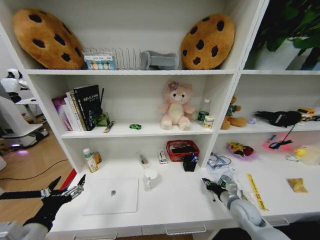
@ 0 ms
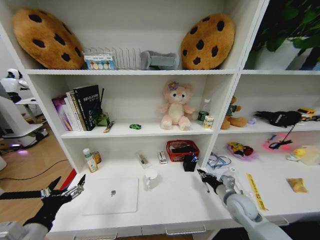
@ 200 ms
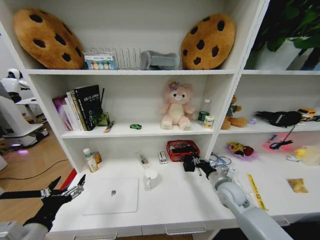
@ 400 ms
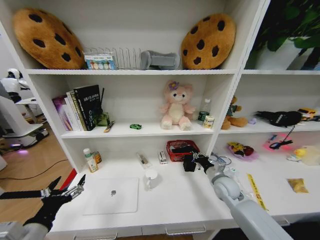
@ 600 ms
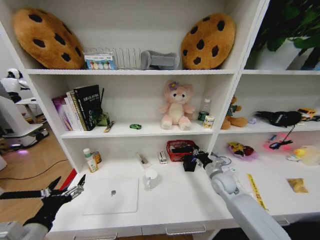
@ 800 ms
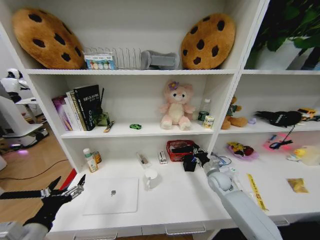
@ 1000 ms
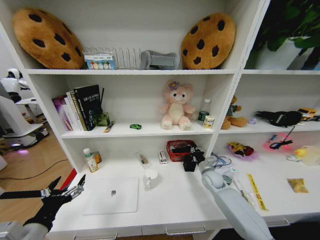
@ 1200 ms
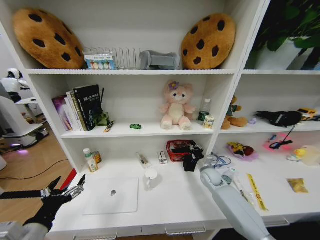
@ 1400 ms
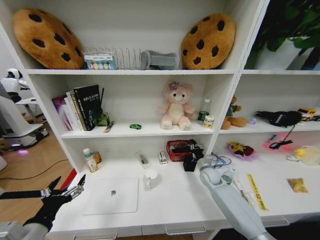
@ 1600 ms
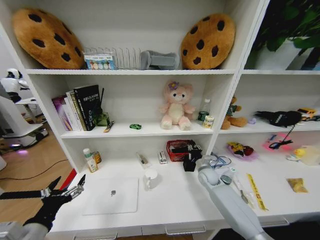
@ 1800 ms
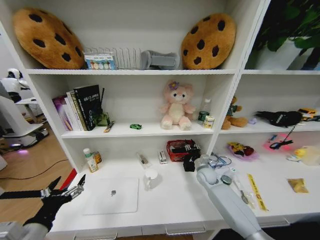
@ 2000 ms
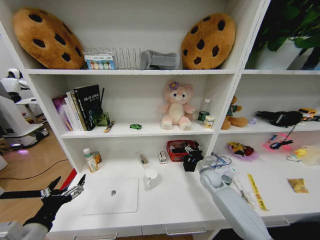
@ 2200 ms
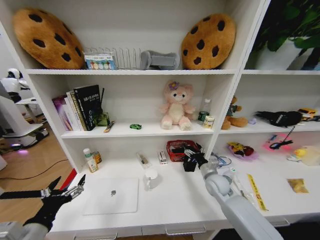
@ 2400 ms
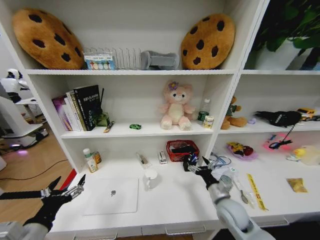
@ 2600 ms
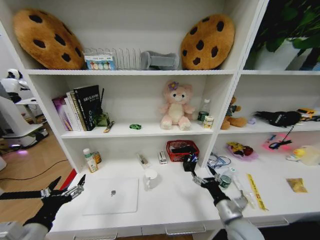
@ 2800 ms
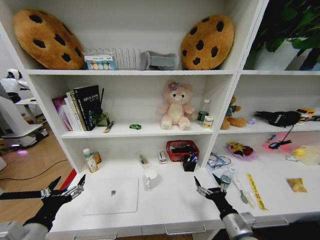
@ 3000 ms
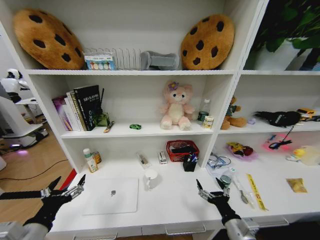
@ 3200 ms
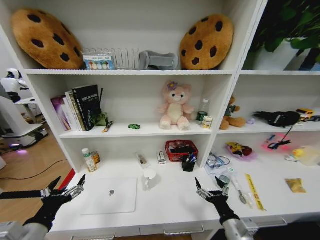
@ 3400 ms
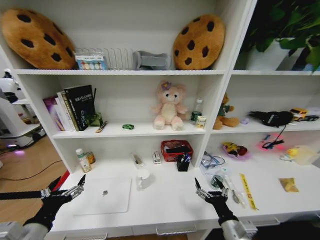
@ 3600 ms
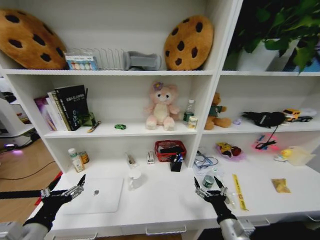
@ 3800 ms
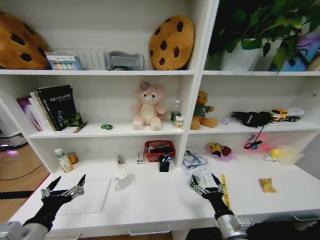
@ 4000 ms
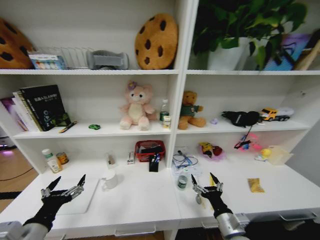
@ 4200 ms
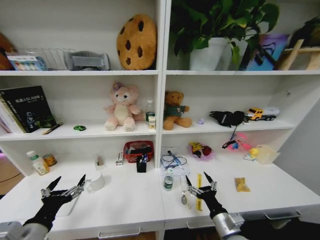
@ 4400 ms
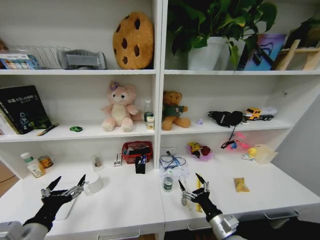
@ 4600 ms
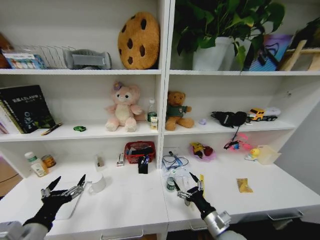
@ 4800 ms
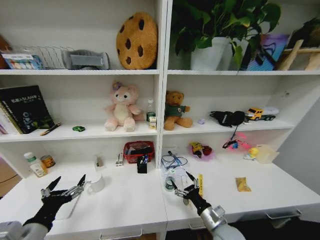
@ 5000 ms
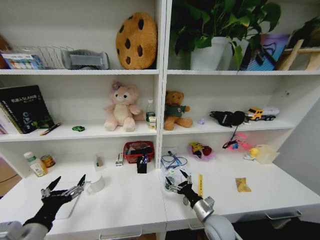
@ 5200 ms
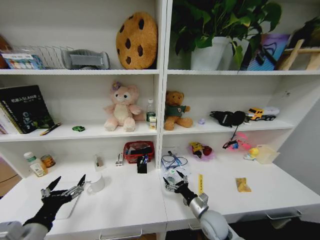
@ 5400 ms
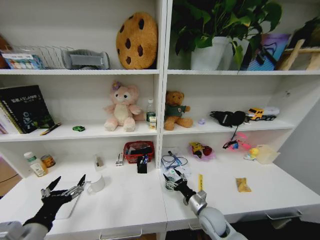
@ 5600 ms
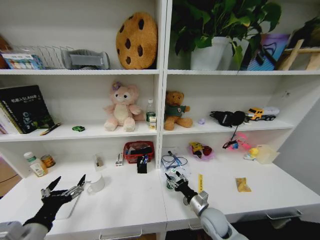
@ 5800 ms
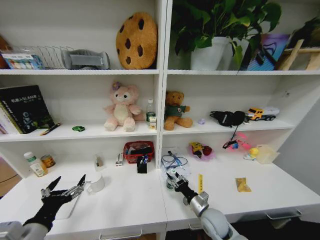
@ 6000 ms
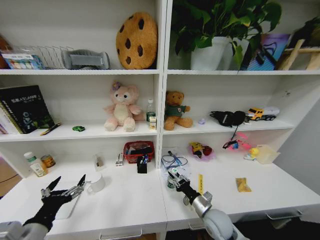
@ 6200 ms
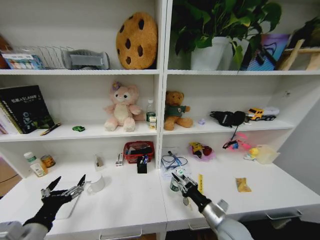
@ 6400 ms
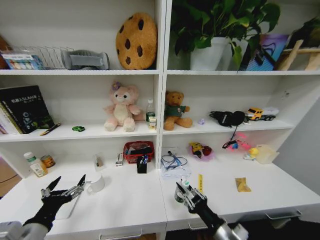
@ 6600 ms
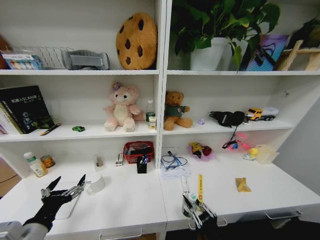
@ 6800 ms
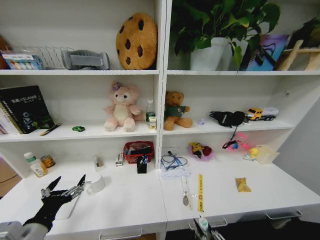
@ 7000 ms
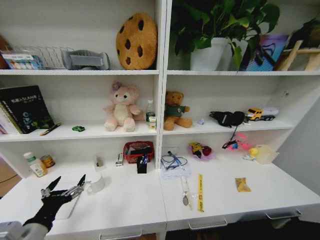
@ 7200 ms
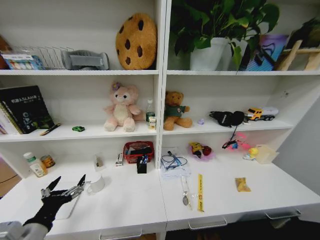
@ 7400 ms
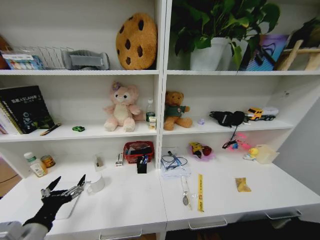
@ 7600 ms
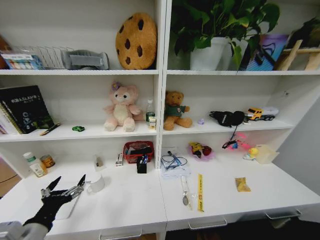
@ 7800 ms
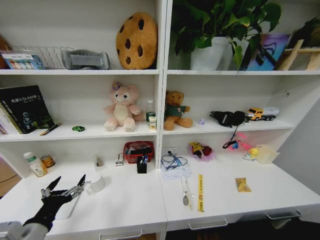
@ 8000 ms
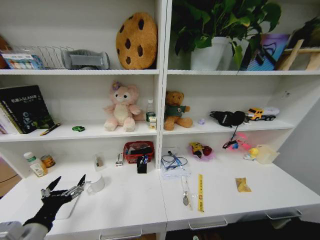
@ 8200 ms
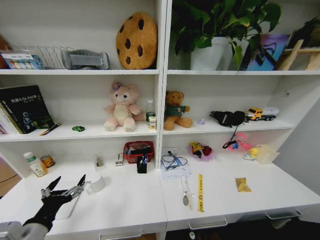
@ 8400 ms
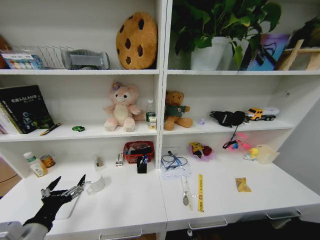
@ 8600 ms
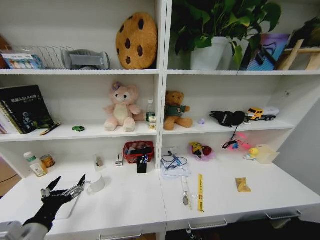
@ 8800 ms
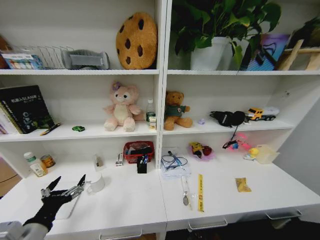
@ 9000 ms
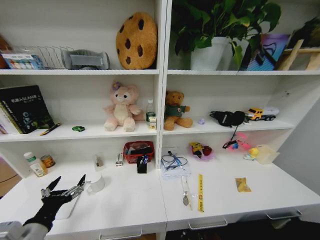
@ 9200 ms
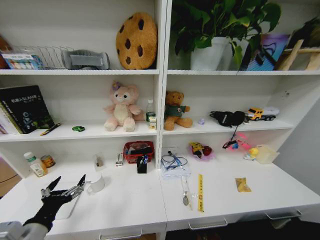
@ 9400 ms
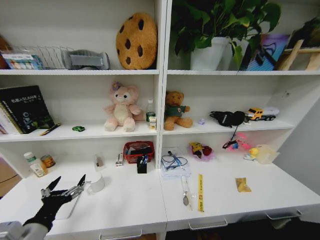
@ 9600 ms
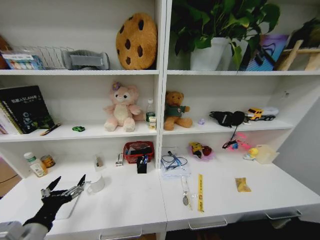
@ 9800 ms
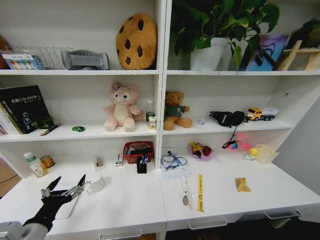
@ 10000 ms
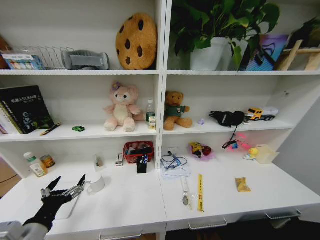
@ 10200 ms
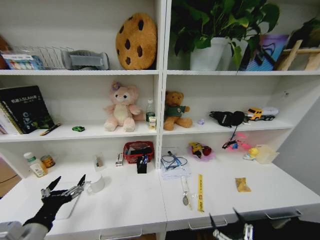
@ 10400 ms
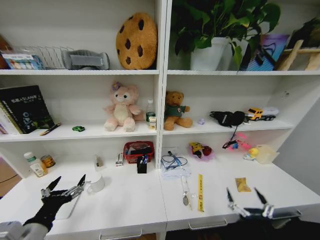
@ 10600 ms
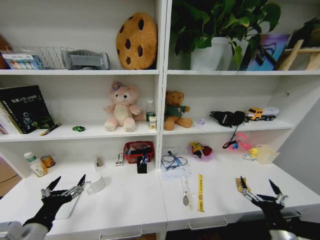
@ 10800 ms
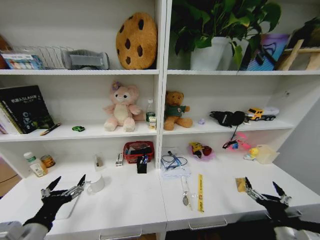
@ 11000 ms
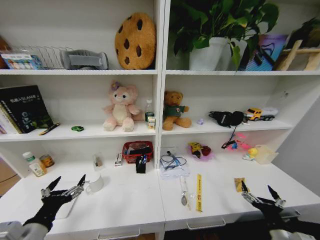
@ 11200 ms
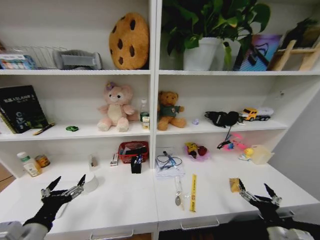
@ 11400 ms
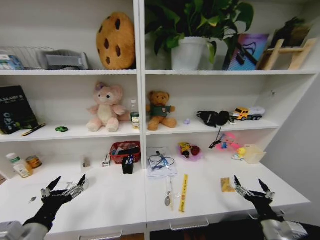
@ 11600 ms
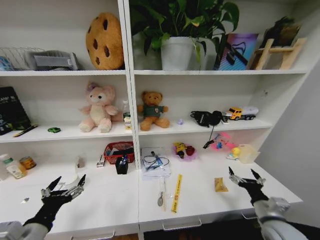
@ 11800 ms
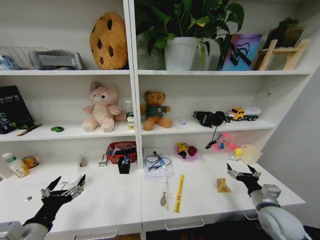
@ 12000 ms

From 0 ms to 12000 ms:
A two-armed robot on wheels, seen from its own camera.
Task of the whole recording: Organize the objects on the table.
From 0 ms to 1600 ms: The right gripper moves forward and to the left, roughly 20 cm.
From 1600 ms to 3000 ms: The right gripper travels backward by about 30 cm, and opens.
From 4400 ms to 6000 ms: The right gripper heads forward and downward, covering about 10 cm, and closes its fingers.
From 6000 ms to 7600 ms: The right gripper moves backward, some 35 cm.
From 9000 ms to 10400 ms: The right gripper travels upward and backward by approximately 30 cm, and opens up.
From 10400 ms to 12000 ms: The right gripper heads forward and upward, covering about 30 cm.

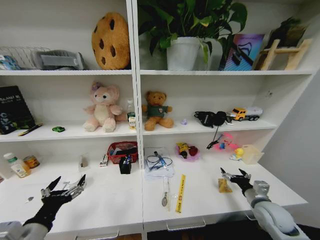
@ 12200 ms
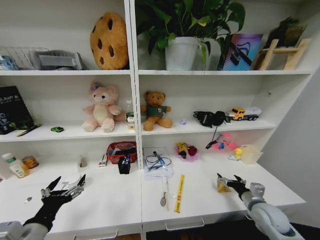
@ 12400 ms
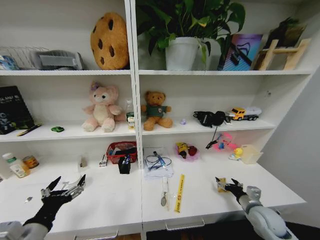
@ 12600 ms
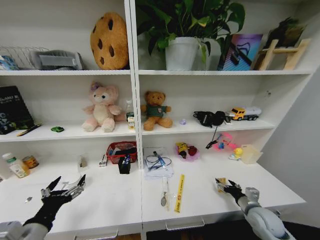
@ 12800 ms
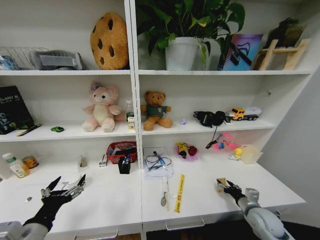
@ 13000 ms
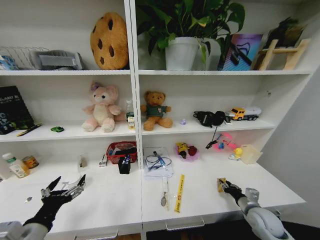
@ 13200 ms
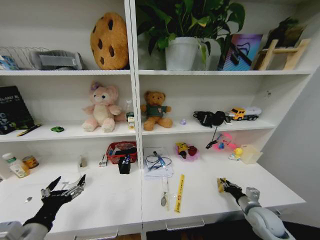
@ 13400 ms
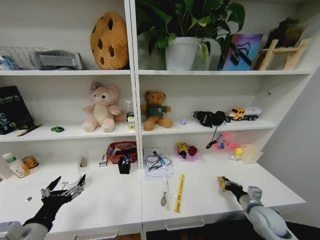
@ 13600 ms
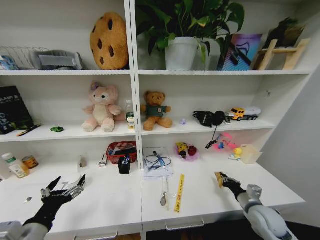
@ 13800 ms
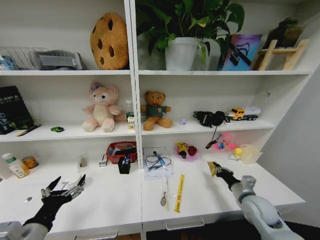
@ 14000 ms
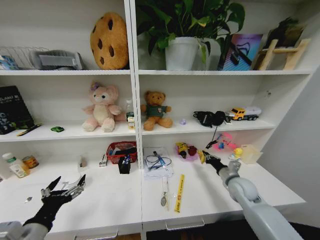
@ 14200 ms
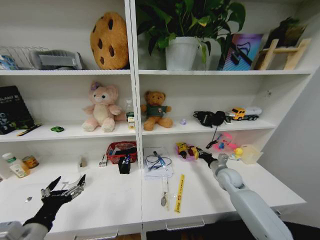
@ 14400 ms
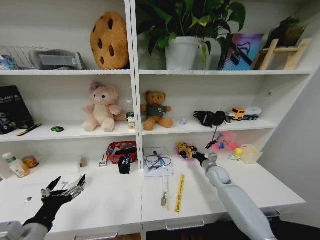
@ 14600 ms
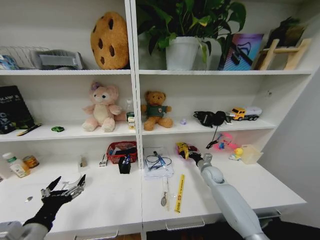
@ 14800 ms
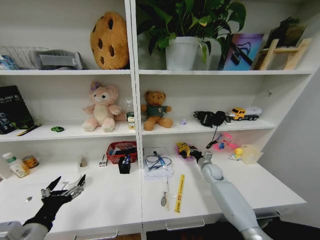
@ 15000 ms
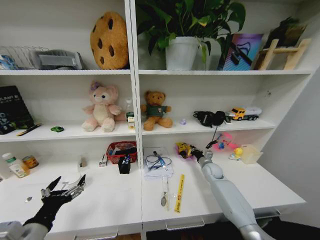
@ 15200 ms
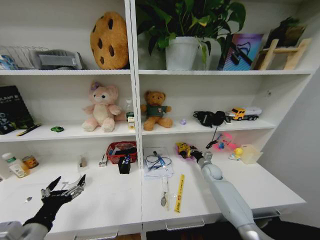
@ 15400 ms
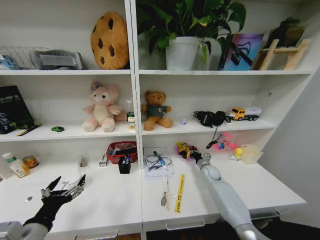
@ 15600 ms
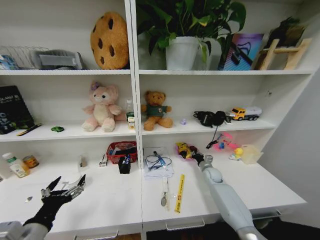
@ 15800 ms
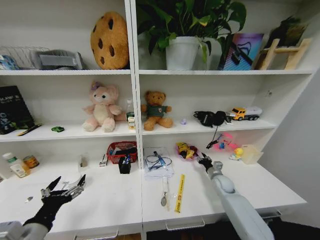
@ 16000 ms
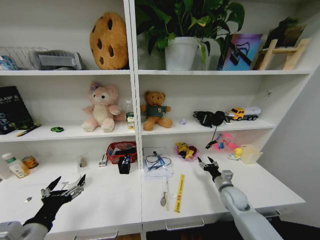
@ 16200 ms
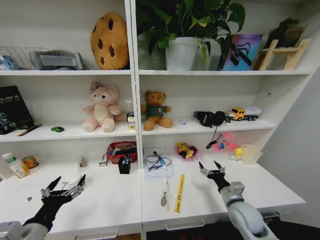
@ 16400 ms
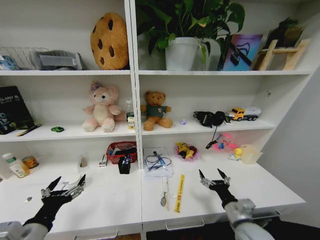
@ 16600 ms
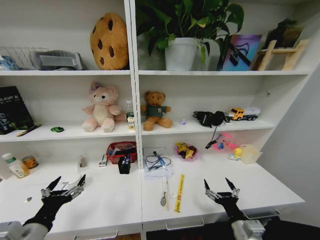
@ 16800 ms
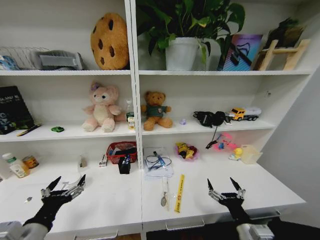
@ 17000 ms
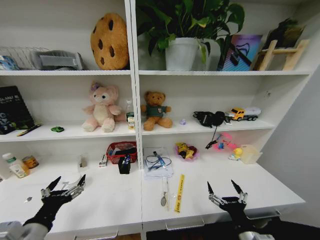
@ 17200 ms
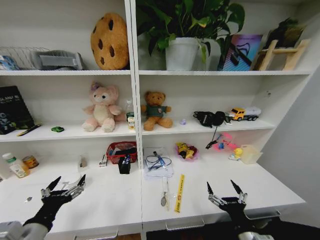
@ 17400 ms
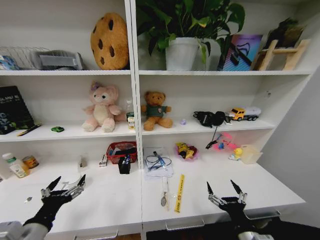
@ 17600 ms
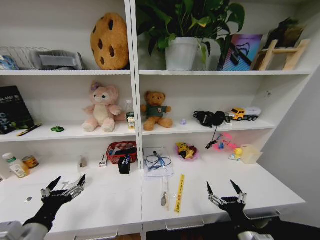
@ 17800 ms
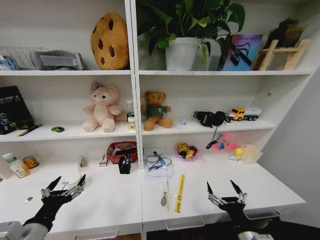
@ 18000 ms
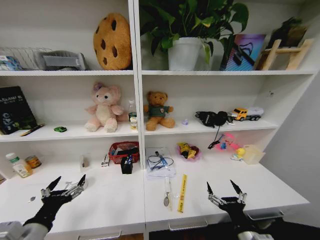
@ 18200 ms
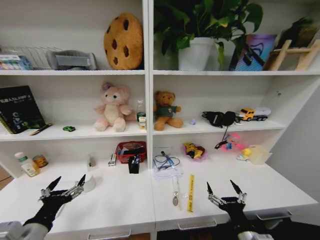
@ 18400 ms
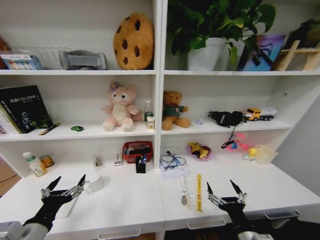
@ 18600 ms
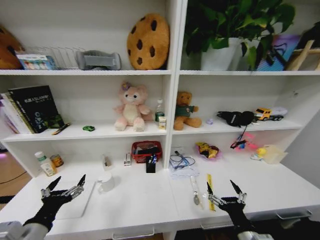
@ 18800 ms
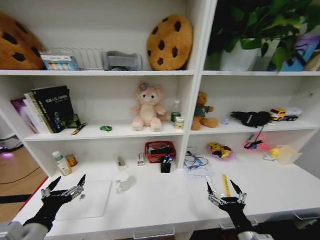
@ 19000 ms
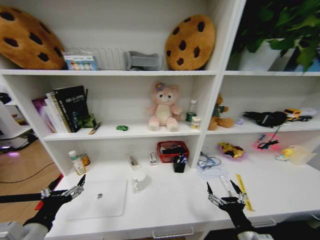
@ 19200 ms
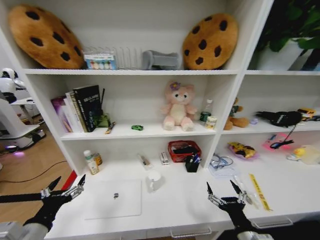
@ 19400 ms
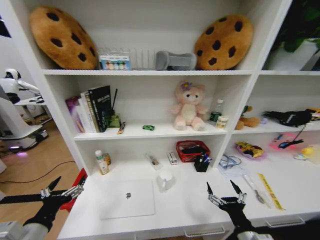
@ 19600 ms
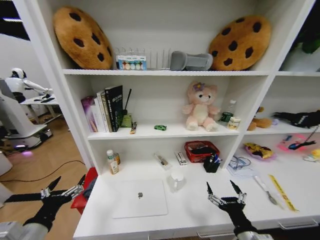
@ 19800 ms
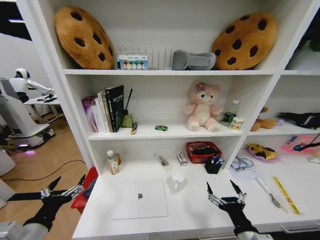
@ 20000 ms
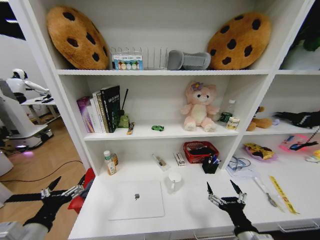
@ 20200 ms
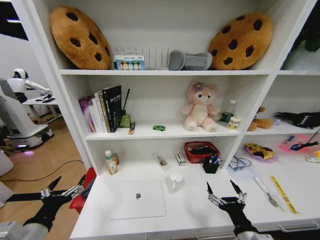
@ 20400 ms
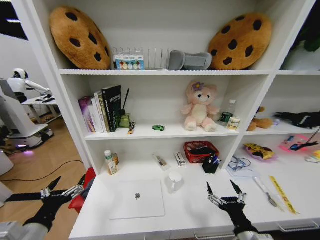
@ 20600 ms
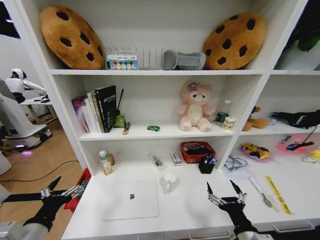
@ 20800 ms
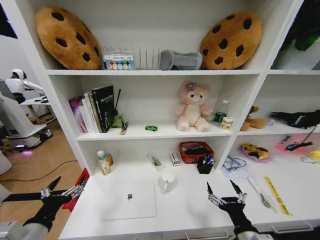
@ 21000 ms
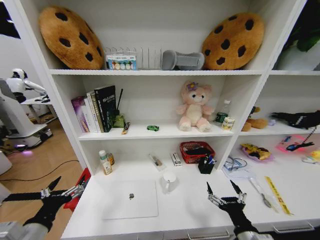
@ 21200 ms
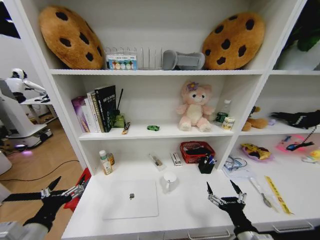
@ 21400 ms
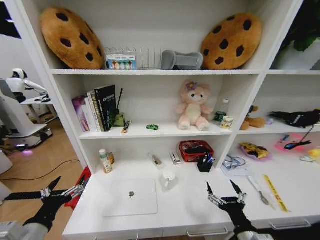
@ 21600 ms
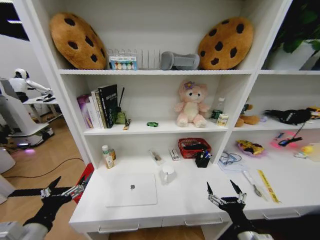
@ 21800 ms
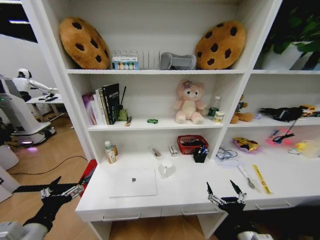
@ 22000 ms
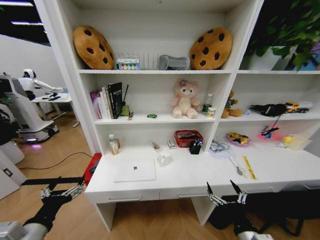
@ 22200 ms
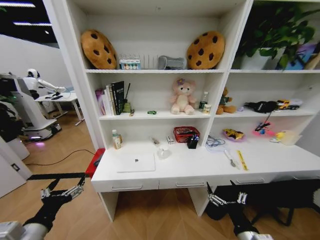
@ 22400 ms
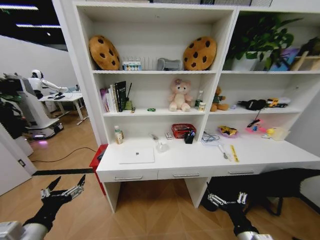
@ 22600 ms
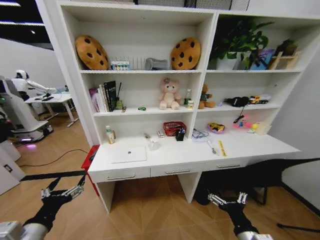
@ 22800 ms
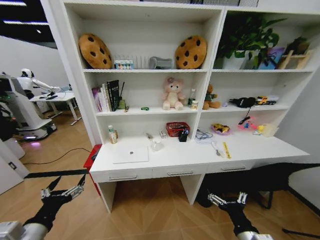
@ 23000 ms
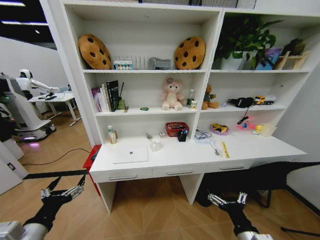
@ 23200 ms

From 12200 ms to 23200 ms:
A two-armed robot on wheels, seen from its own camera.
Task of the whole recording: Organize the objects on the table.
From 12200 ms to 13800 ms: The right gripper closes its fingers.
From 13800 ms to 15400 ms: The right gripper travels forward by roughly 25 cm.
From 15400 ms to 17000 ms: The right gripper goes approximately 35 cm backward, and opens.
